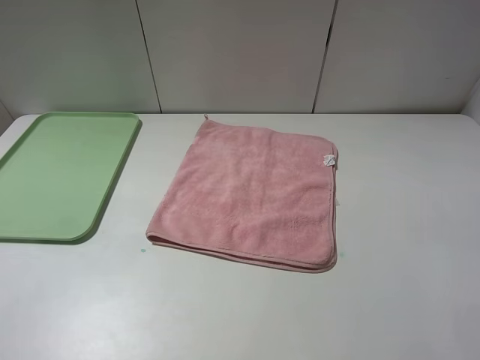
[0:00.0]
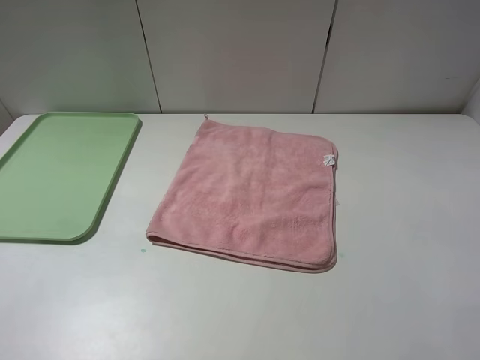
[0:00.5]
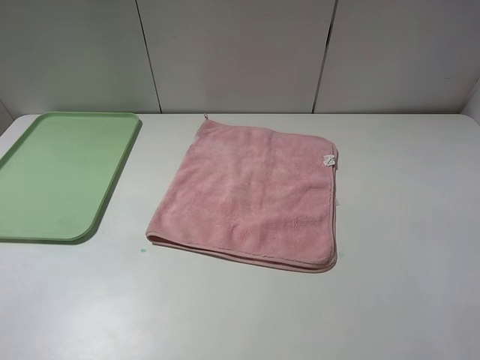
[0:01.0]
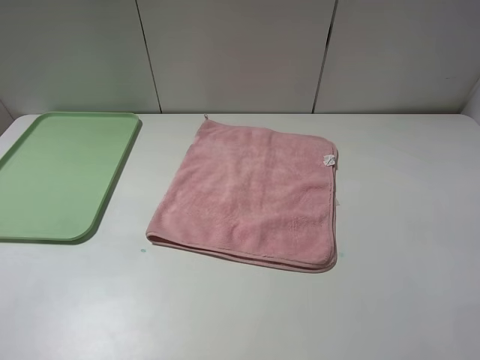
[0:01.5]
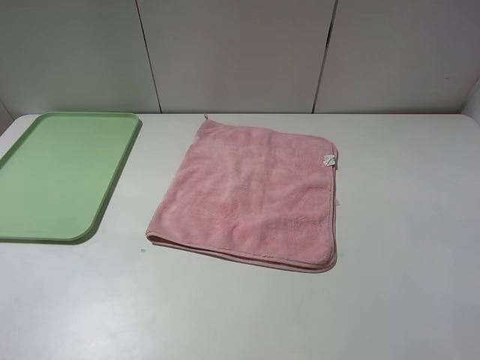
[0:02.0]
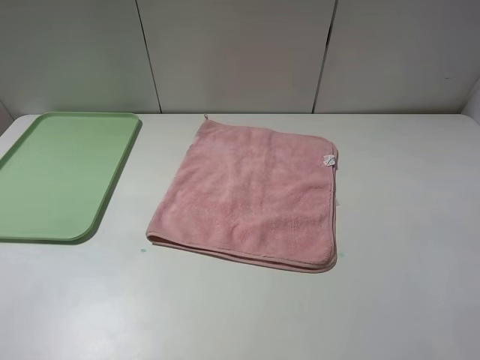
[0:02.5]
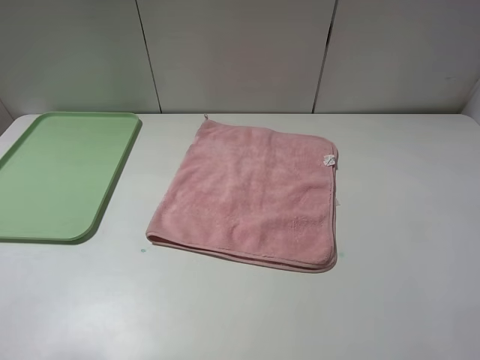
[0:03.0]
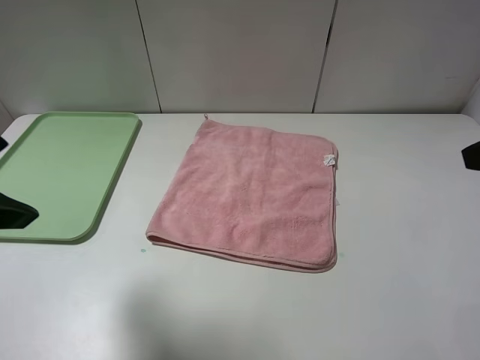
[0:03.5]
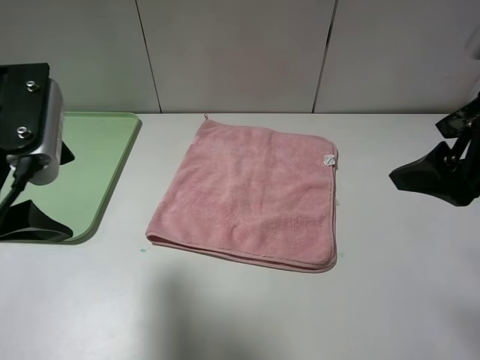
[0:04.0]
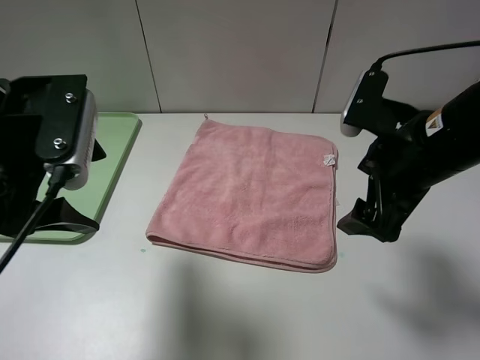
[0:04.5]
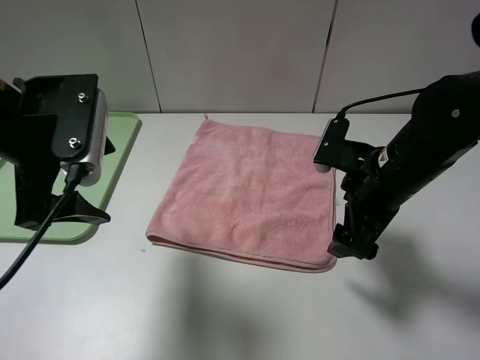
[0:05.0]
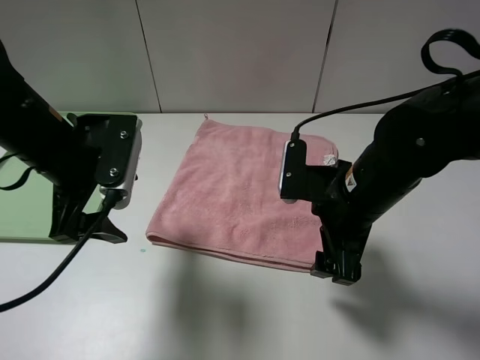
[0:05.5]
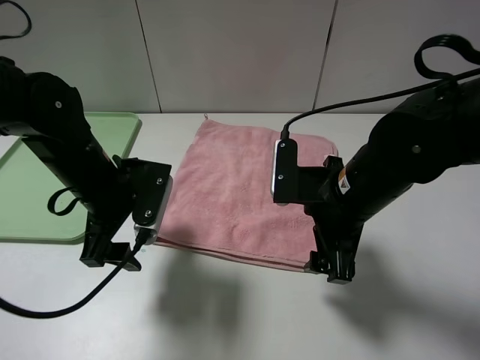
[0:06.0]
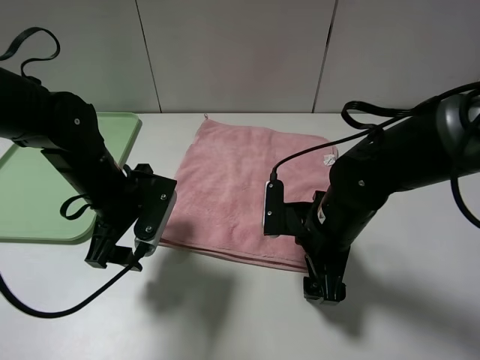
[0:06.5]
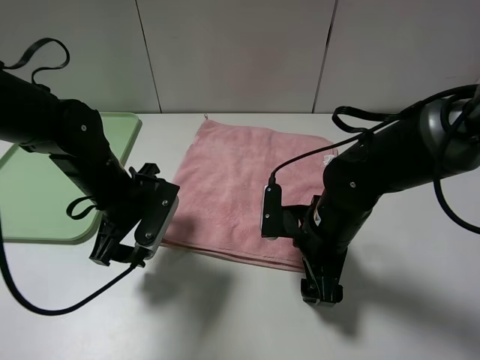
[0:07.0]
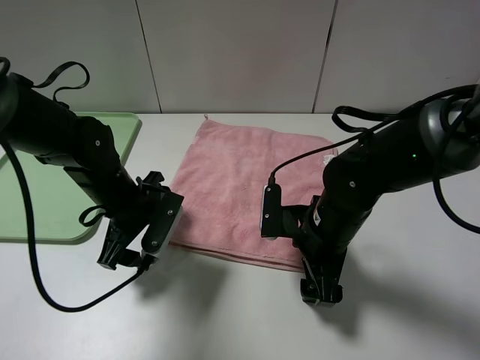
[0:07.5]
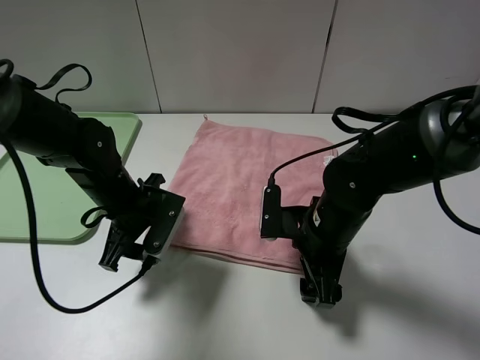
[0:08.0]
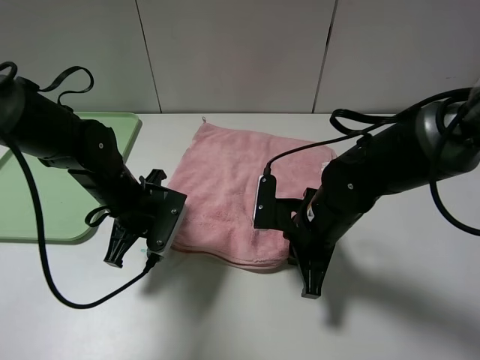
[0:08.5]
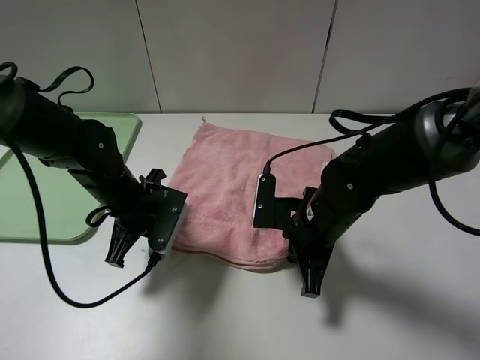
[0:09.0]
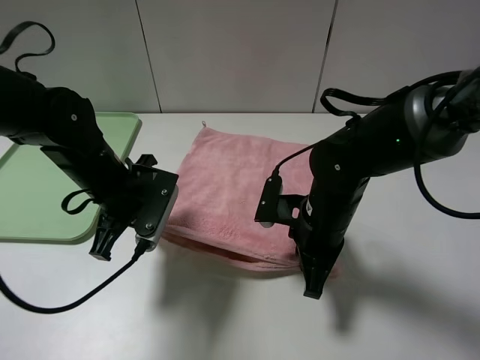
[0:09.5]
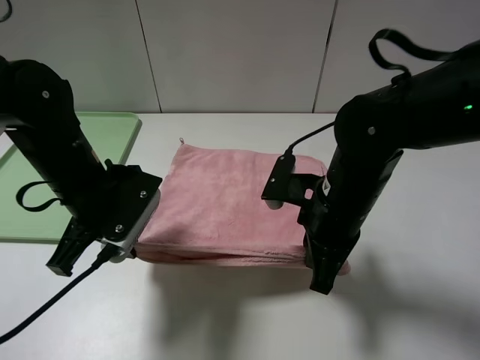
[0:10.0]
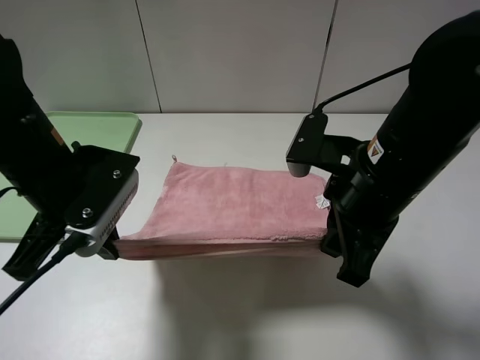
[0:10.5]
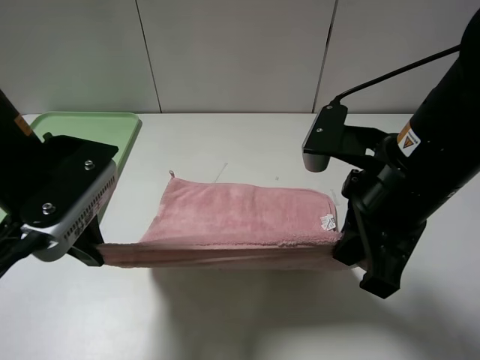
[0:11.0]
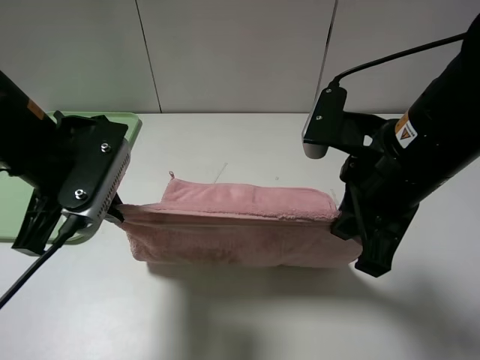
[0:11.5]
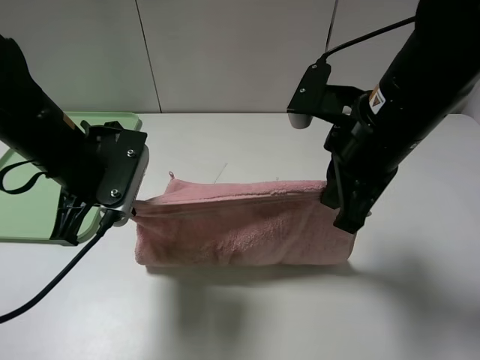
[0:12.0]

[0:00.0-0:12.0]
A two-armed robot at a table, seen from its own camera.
0:00.0 to 0:02.0: The two grippers keep their place.
0:02.0 to 0:04.0: The right gripper is displaced forward and to the left by some 20 cm. The left gripper moves forward and to the right, about 20 cm.
0:04.0 to 0:06.0: The right gripper travels downward and to the left by about 15 cm. The left gripper heads downward, forward and to the right, covering about 15 cm.
0:06.0 to 0:08.0: The grippers both shift downward by about 5 cm.
0:08.0 to 0:10.0: The two grippers go approximately 5 cm upward. The left gripper closes up. The right gripper closes its fingers.
0:10.0 to 0:12.0: The right gripper moves upward, some 10 cm.

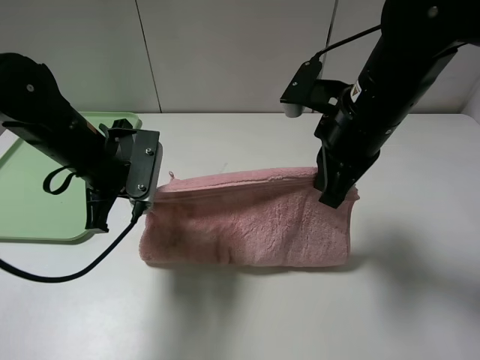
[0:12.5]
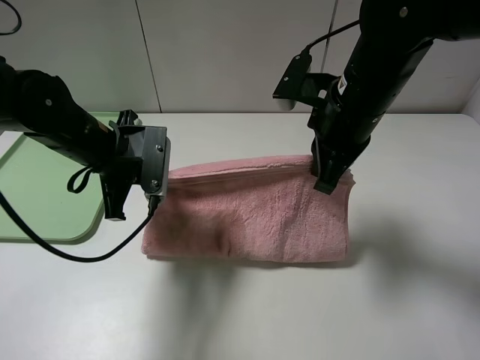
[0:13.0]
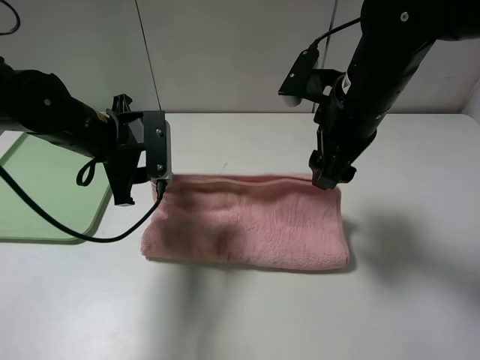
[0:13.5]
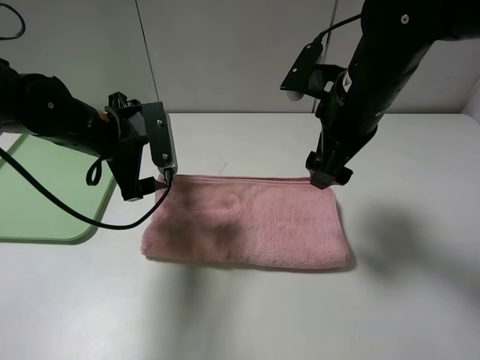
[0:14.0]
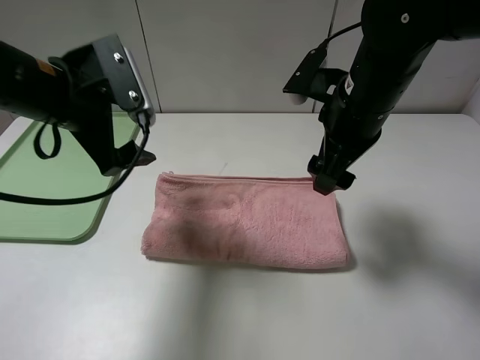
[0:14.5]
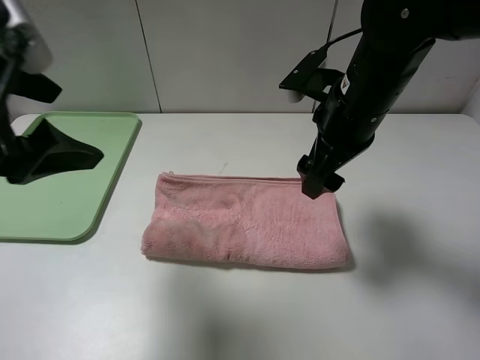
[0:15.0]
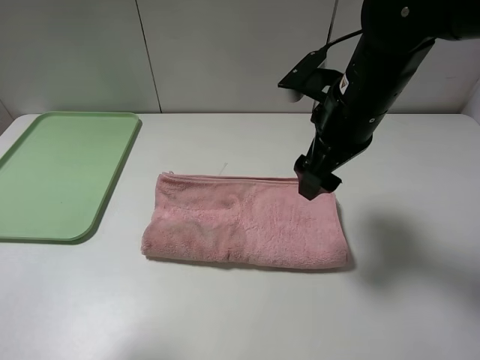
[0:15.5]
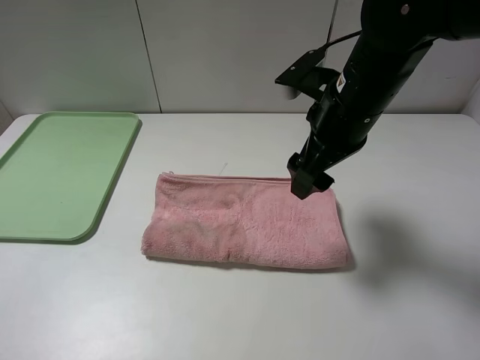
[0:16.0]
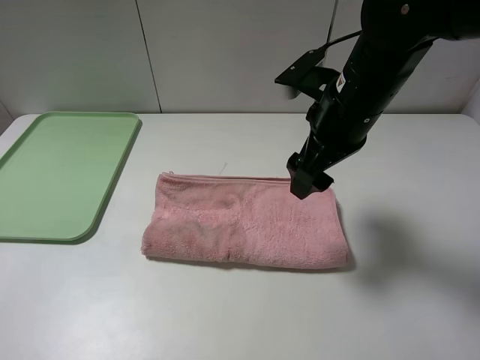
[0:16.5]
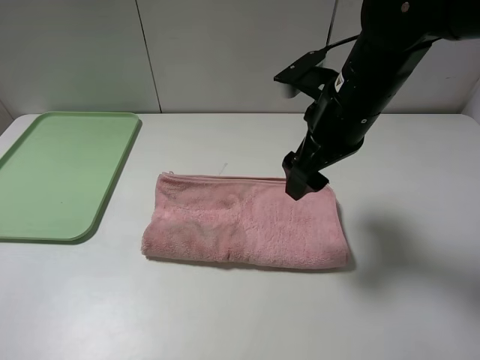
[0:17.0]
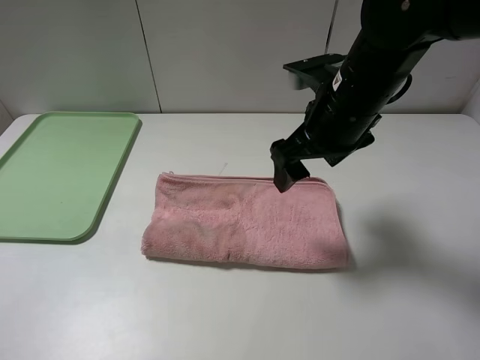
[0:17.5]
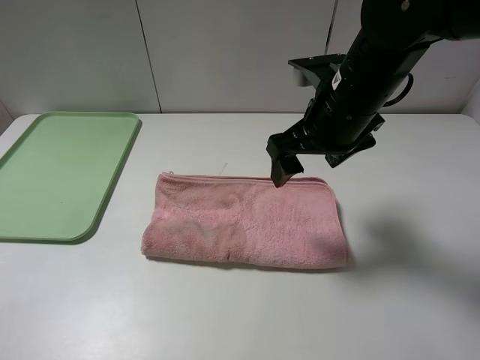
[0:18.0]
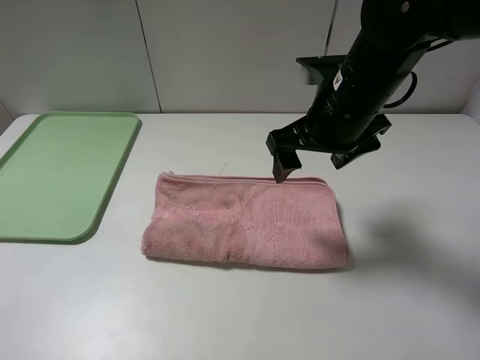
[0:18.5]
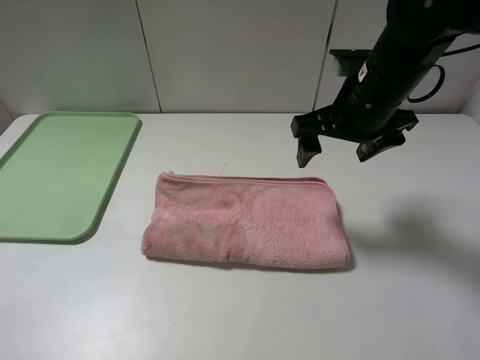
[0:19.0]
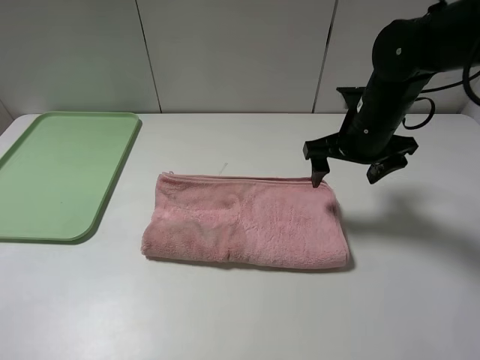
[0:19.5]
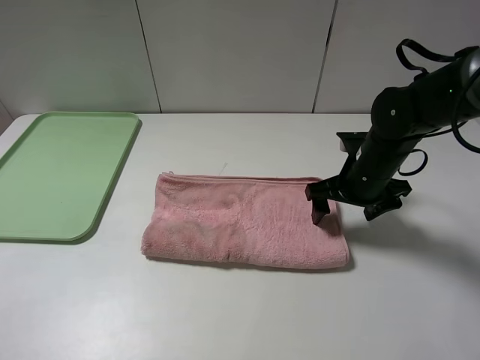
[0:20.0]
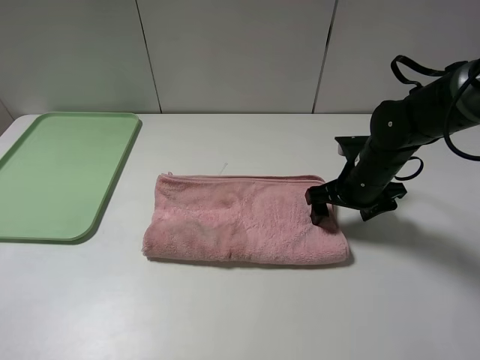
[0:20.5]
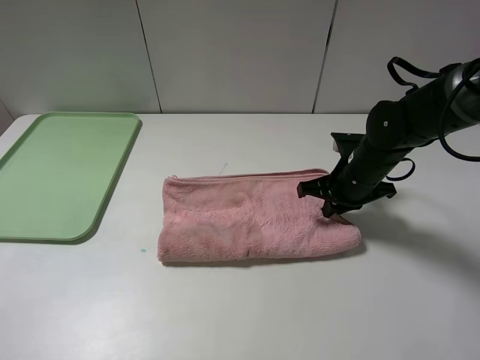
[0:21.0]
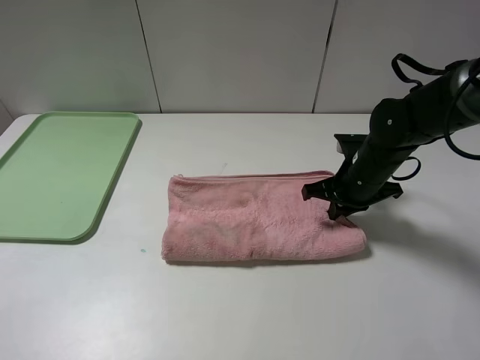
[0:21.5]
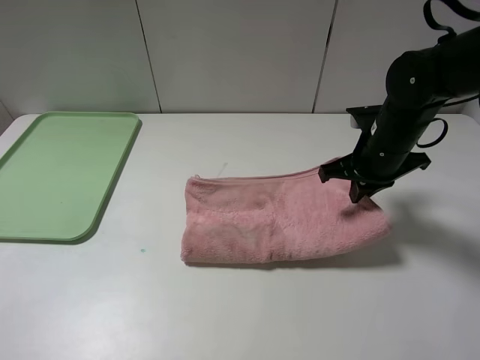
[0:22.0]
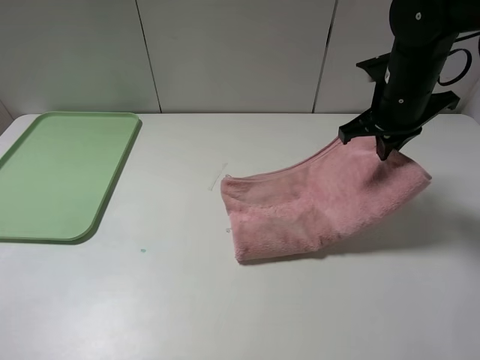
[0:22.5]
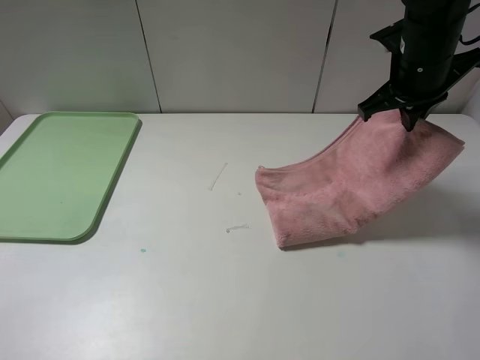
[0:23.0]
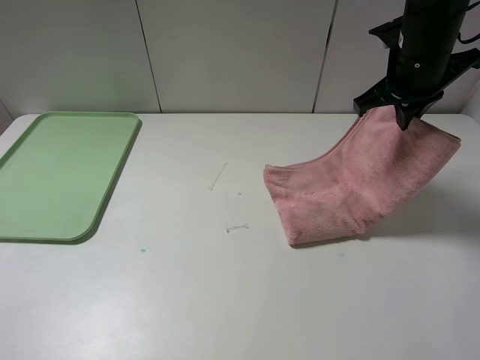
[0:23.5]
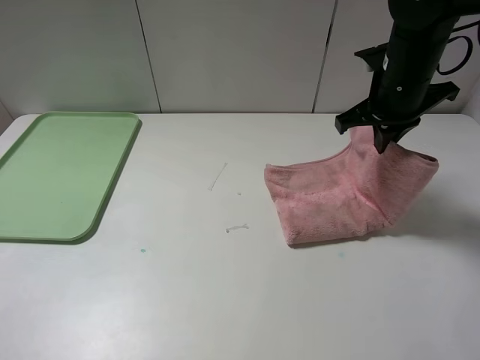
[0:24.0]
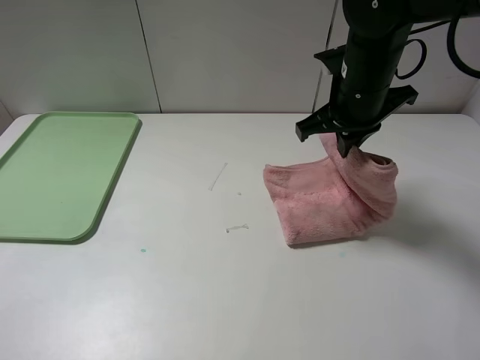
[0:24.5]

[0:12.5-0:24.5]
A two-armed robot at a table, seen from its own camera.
0:12.5 to 0:14.5: The left gripper shifts roughly 10 cm upward, and opens, while the right gripper opens up.
0:14.5 to 0:16.5: The left gripper moves backward and to the left, roughly 30 cm.
0:18.5 to 0:20.5: The right gripper is displaced downward and to the right by about 15 cm.
0:20.5 to 0:22.5: The right gripper goes roughly 15 cm upward, and closes its fingers.
0:22.5 to 0:24.5: The right gripper heads to the left, covering approximately 5 cm.

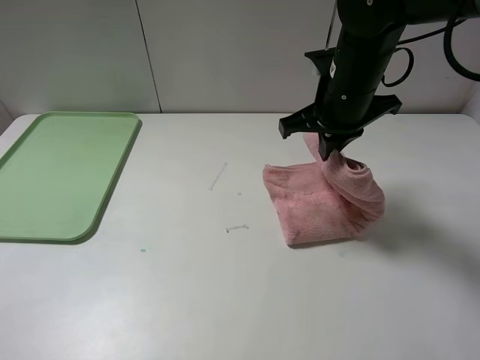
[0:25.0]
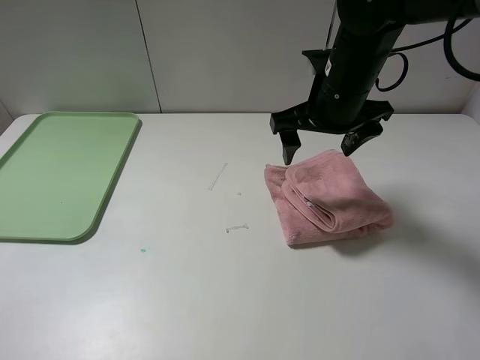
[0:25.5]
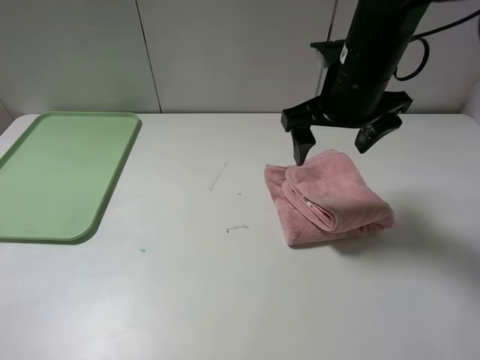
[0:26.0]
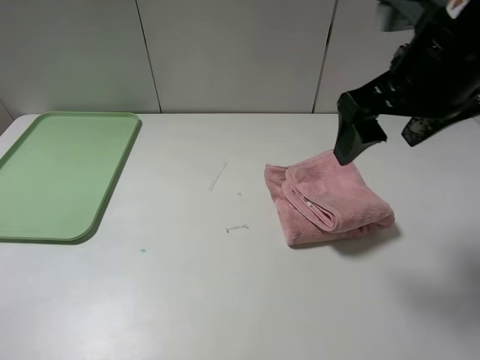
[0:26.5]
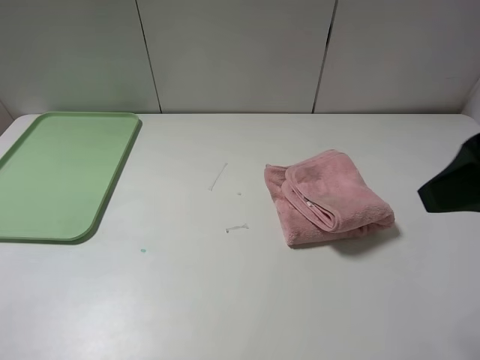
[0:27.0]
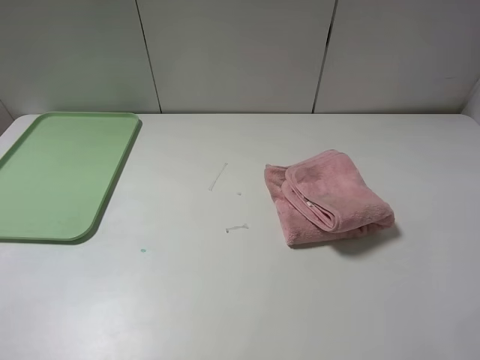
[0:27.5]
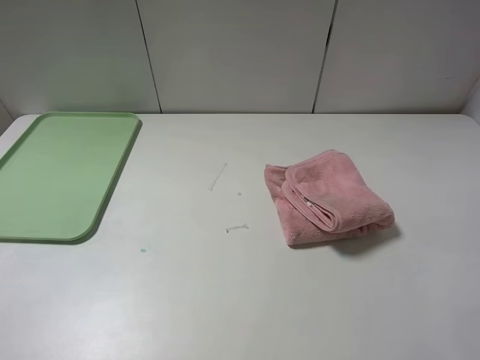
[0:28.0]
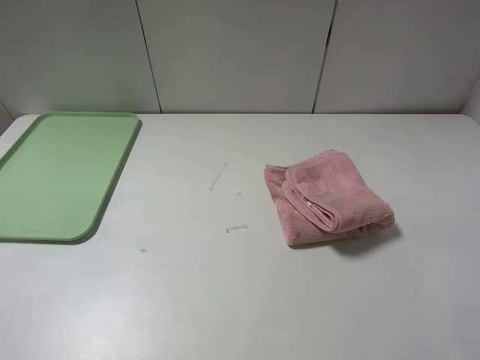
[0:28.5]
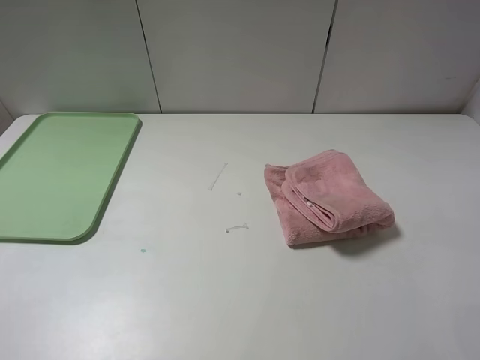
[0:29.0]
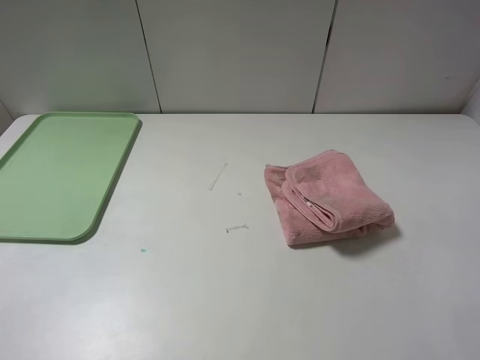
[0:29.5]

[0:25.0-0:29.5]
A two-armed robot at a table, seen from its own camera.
0:25.0 to 0:27.0: The right gripper is displaced backward, to the right and upward by some 25 cm, and opens.
0:27.0 to 0:29.5: The right gripper shifts about 15 cm backward, to the right and downward.
